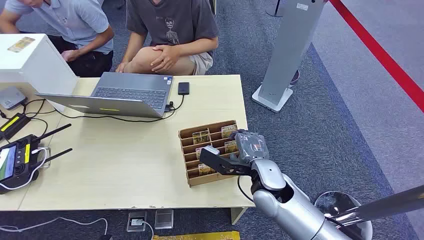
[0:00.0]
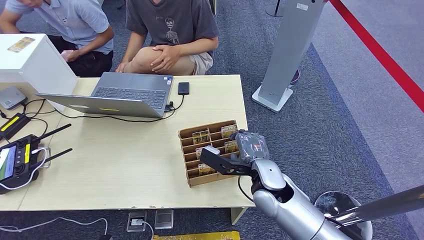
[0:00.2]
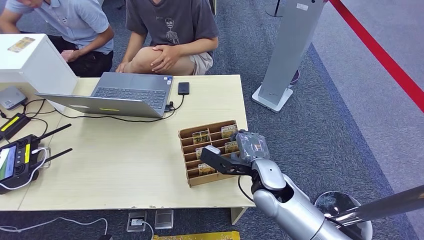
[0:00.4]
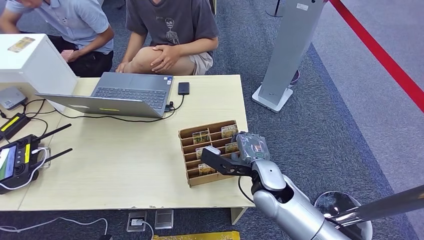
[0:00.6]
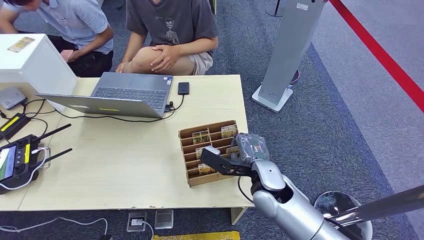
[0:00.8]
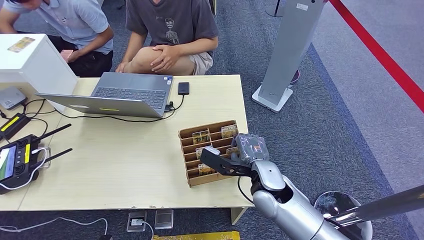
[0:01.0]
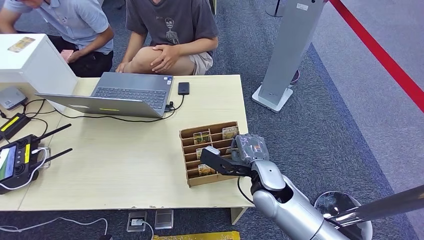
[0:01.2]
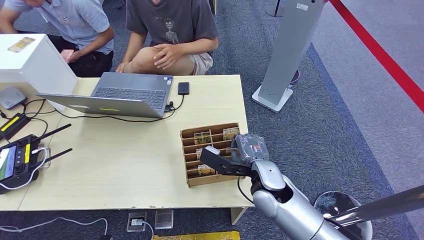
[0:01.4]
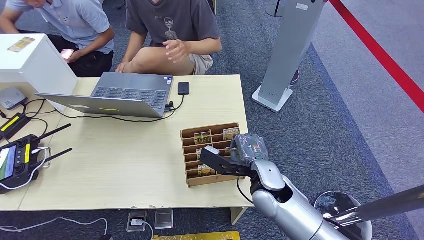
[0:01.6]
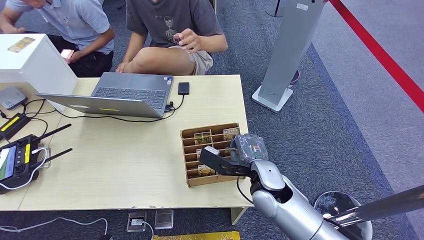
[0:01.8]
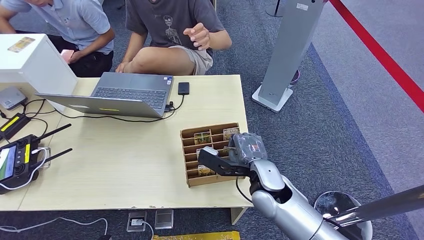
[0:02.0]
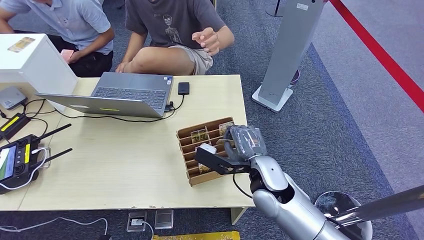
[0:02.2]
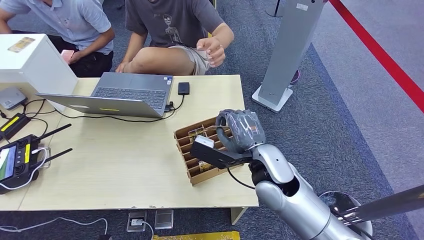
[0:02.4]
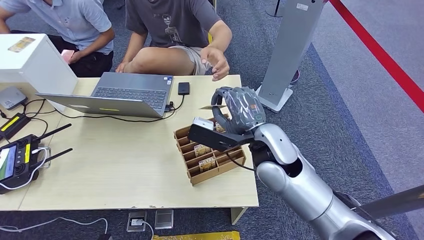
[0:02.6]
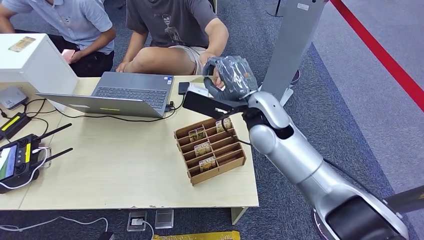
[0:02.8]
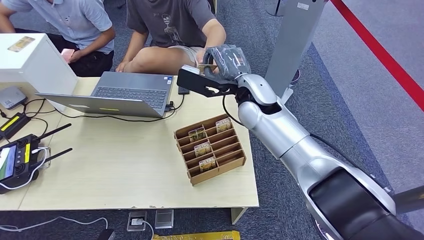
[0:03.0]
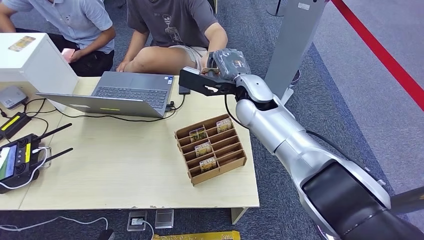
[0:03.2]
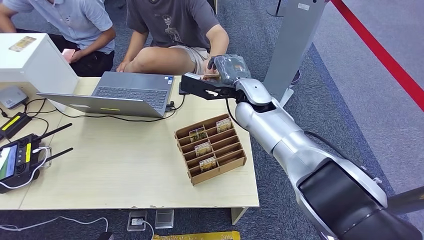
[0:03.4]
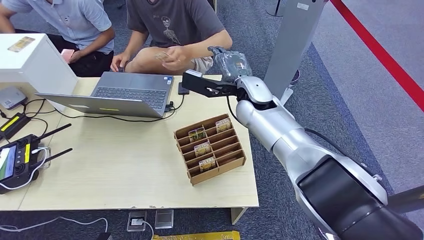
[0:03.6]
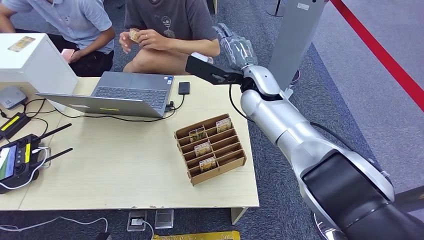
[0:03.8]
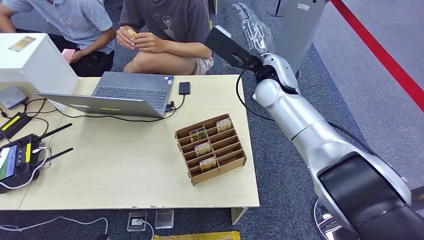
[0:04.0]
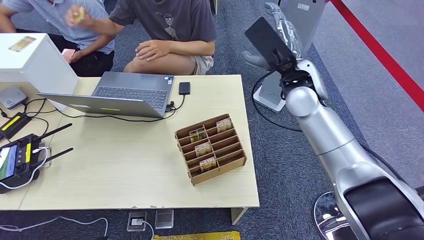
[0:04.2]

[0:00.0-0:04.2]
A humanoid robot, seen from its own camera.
Task of the whole recording: Pick up the card and hand it to the target person.
Step, 0:00.0 to 0:02.6: Pick up the key card from the card box.
Step, 0:02.8 to 0:04.2: Hand the key card to the target.
